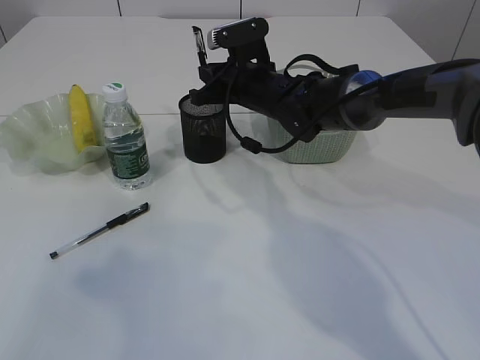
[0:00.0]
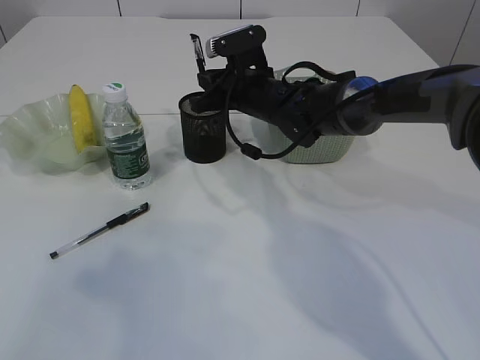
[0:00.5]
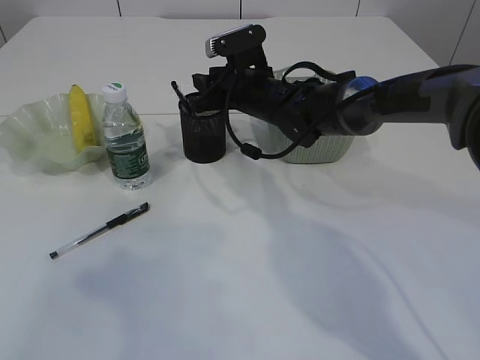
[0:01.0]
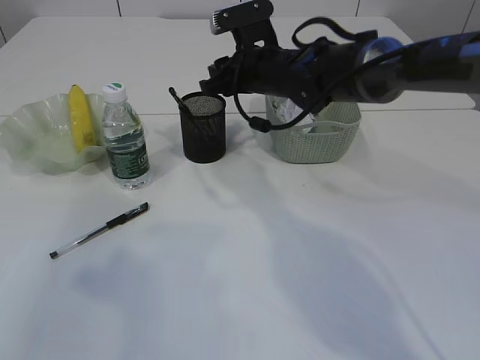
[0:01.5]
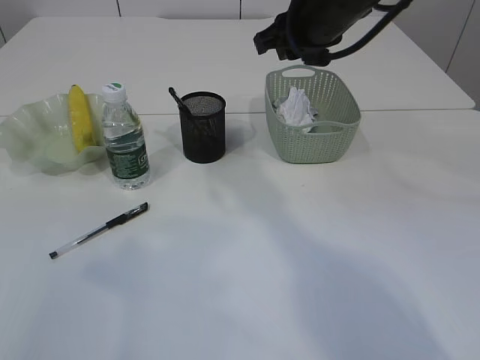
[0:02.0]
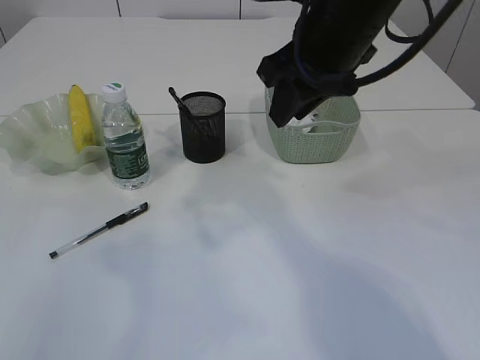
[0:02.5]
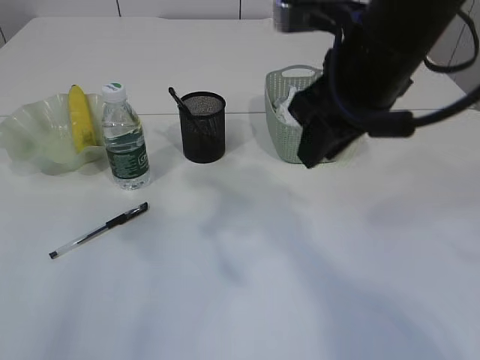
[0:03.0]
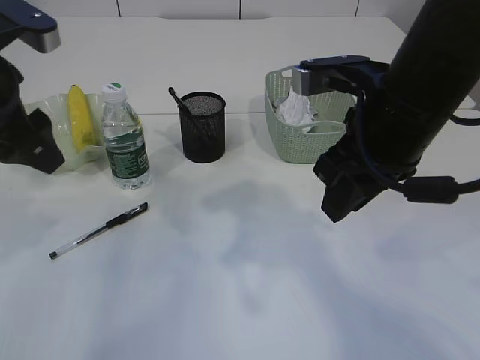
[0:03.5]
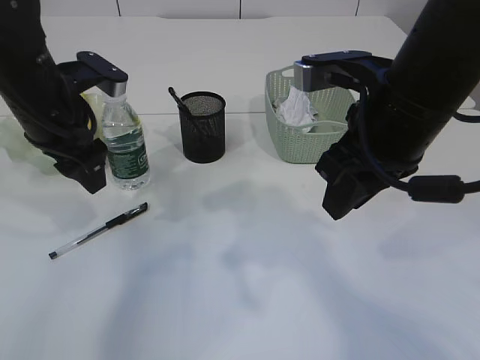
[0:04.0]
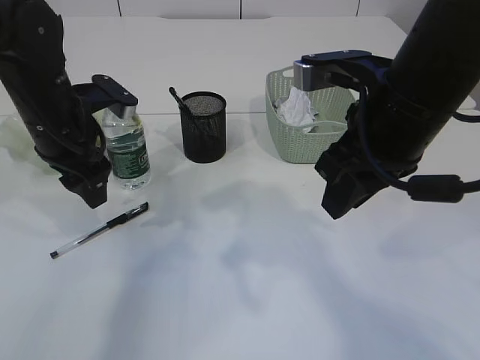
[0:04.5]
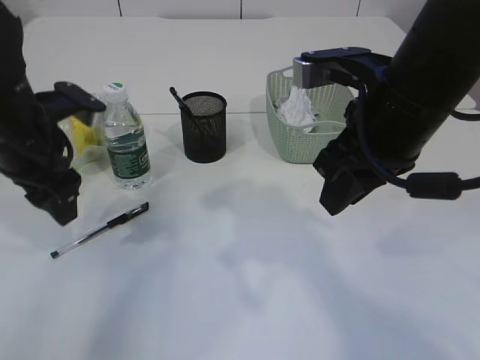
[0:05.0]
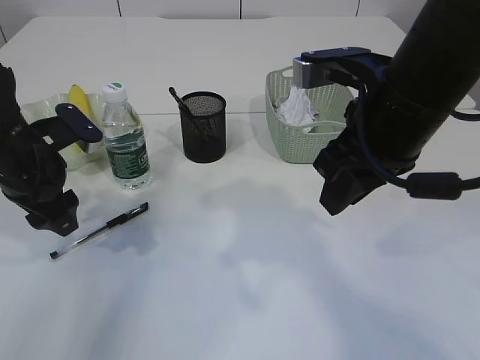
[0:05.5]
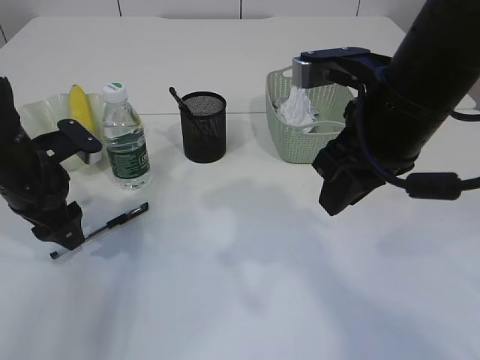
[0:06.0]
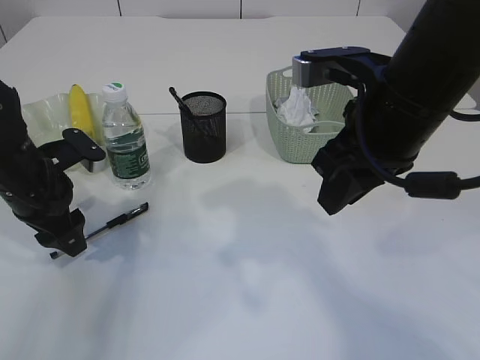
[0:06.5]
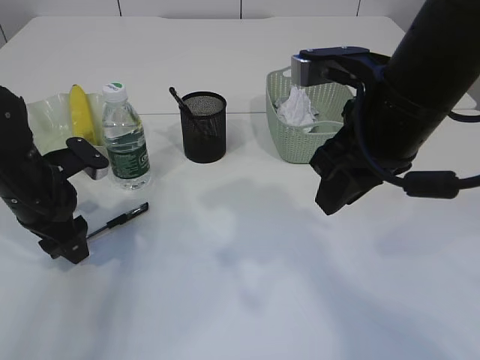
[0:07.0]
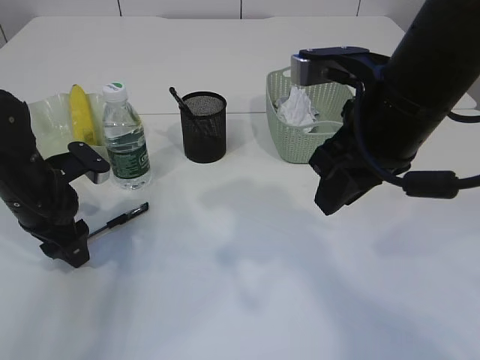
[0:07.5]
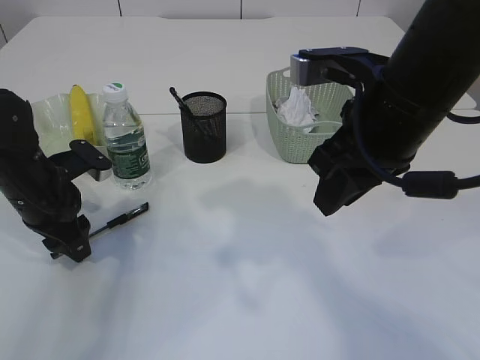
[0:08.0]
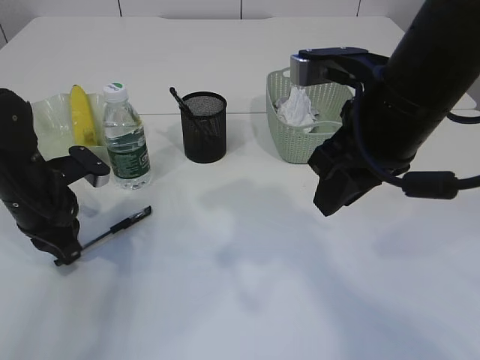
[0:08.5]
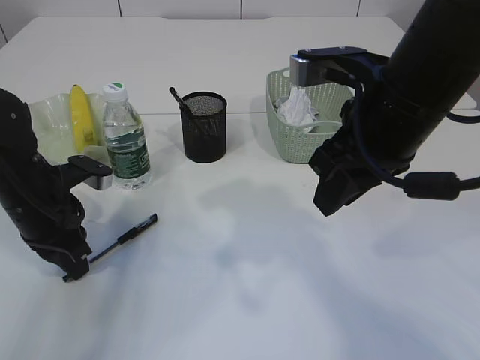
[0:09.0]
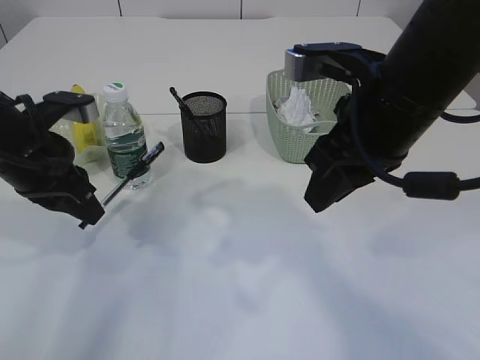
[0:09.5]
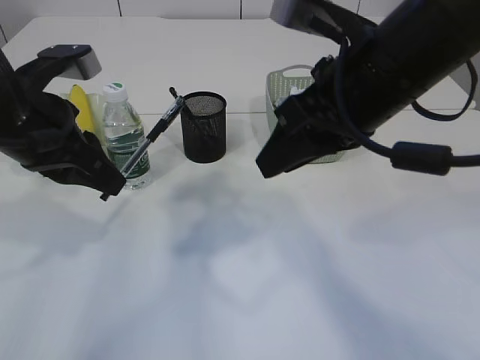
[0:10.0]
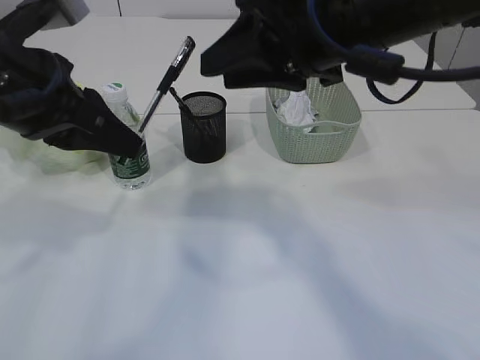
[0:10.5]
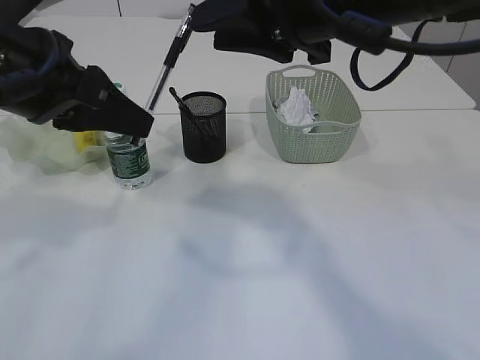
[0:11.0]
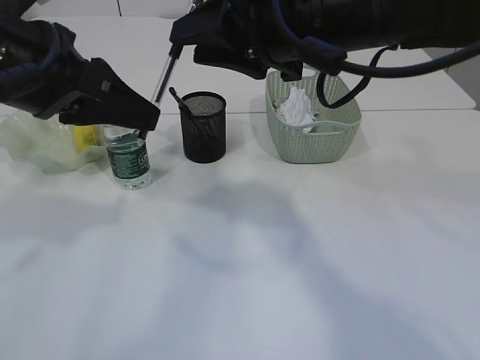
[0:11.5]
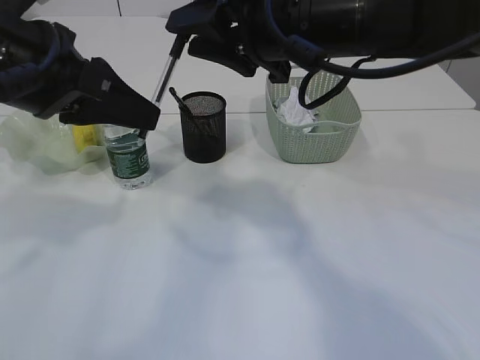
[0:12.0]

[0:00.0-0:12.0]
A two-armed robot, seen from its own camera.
Step, 0:02.0 to 0:09.5: Pick up the pen with left arm.
0:00.0 to 0:02.0: The right gripper is displaced upward, backward and to the right by about 15 cm, and opens up.
0:02.0 to 0:04.0: The left gripper is displaced forward, downward and to the right by about 30 cm; the right gripper is displaced backward by roughly 15 cm.
0:04.0 to 0:06.0: The left gripper moves downward, about 10 cm.
0:06.0 to 0:08.0: There are only small adjustments of the grippers.
0:08.0 to 0:10.0: The left gripper heads upward, covering roughly 15 cm, and closes up.
0:10.0 to 0:12.0: The left gripper shifts approximately 5 cm upward. Meanwhile the right gripper is displaced forward by approximately 5 cm.

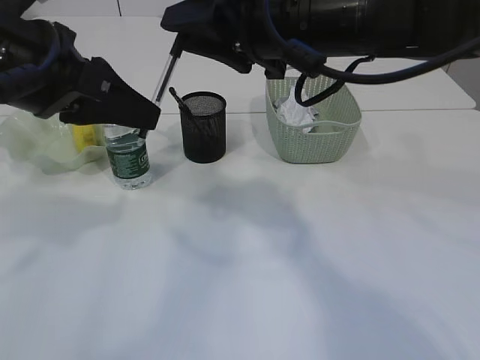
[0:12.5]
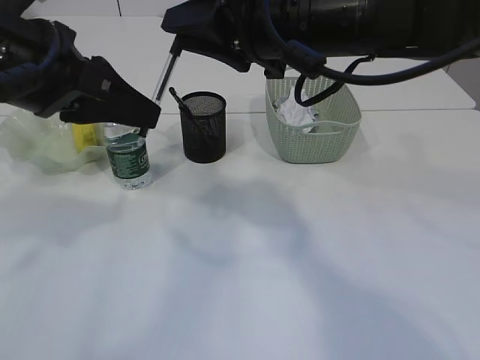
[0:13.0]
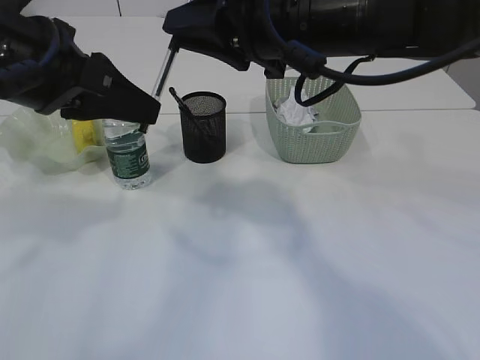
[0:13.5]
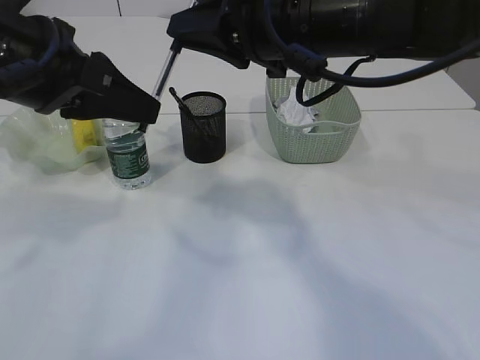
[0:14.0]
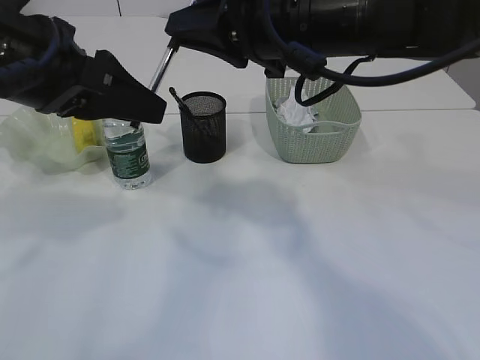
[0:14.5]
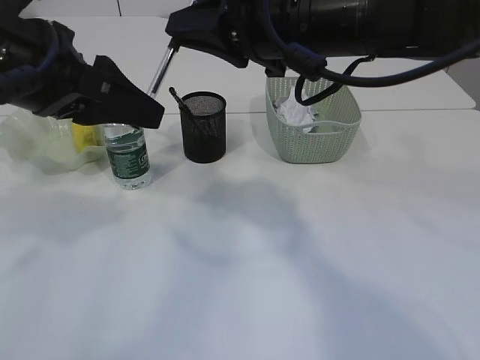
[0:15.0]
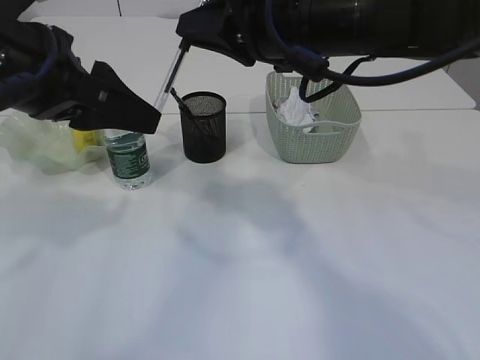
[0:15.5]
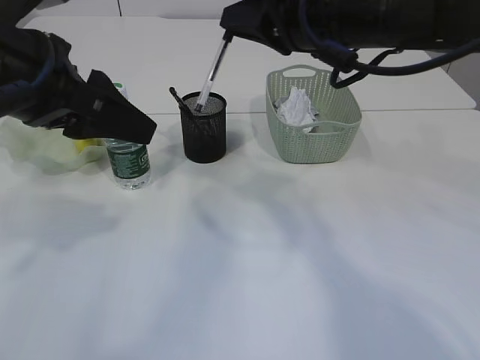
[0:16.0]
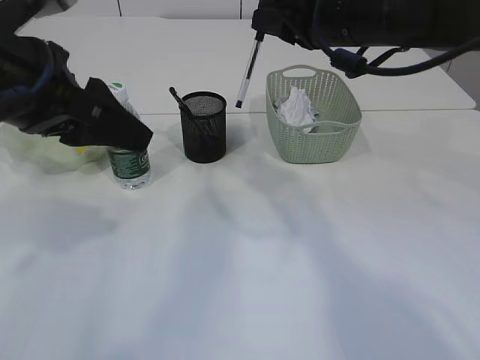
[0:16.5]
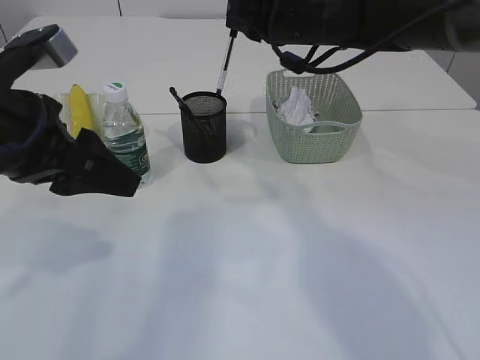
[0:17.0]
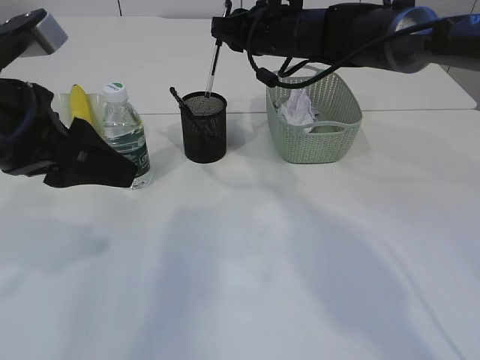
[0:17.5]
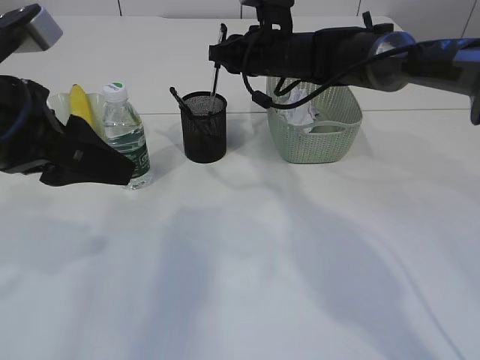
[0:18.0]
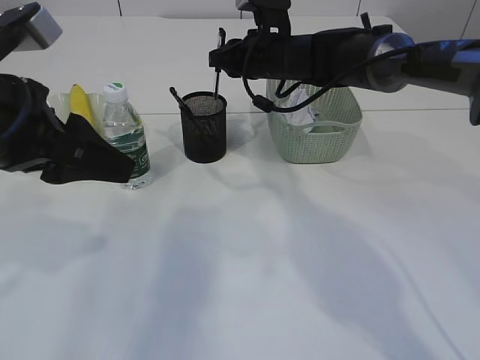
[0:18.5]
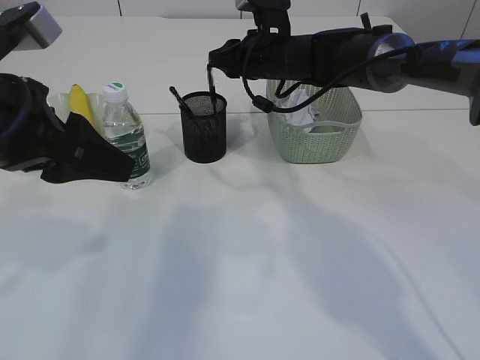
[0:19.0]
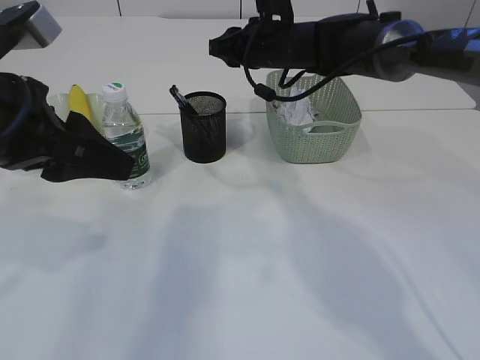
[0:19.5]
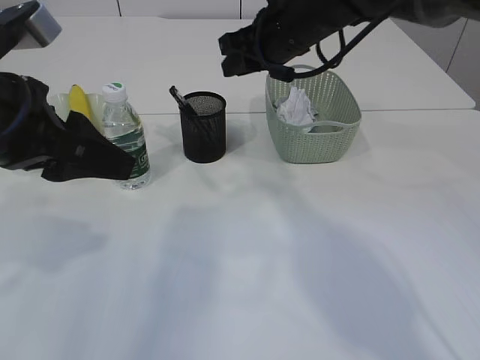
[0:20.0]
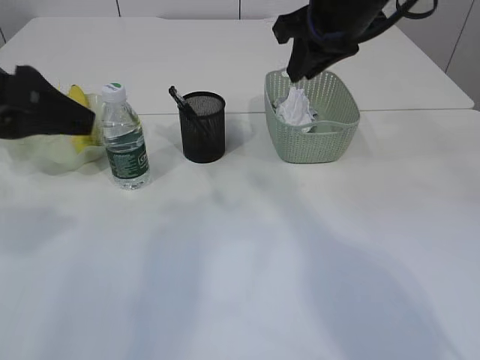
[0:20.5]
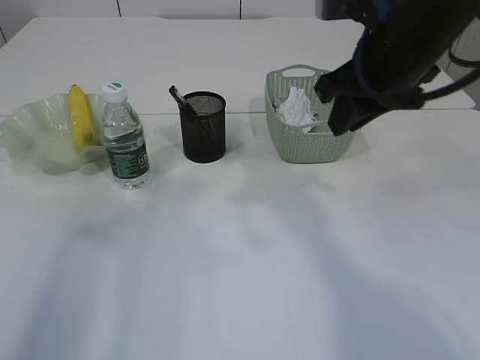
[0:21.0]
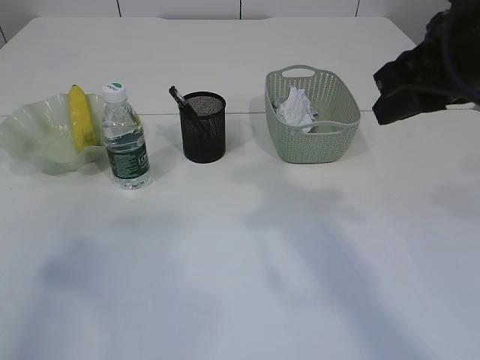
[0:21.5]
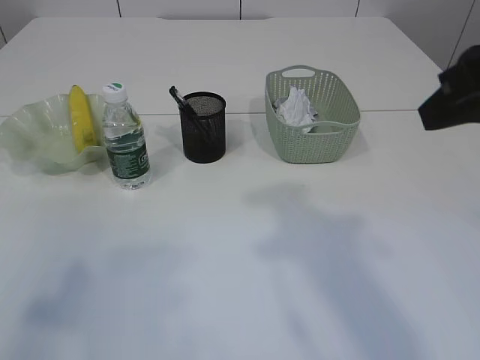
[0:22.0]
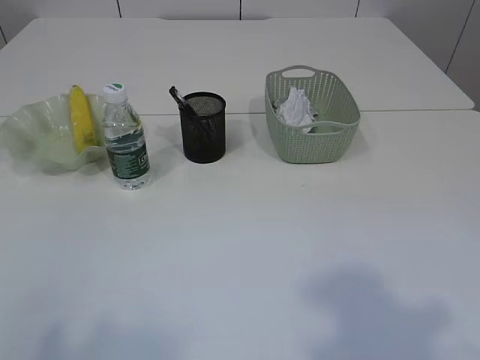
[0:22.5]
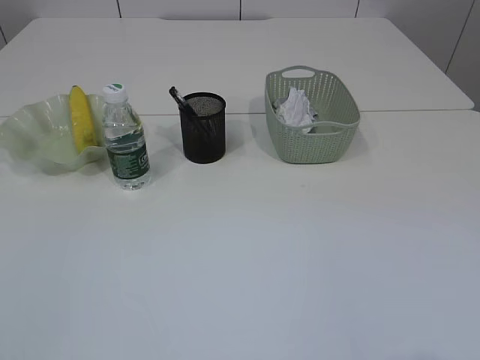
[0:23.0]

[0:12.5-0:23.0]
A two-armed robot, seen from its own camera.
Step, 0:12.5 to 0:15.5: transfer the pen to the right arm.
Step, 0:16.0 to 0:19.5: Place the pen into the pen holder.
0:12.5 to 0:14.5: The left gripper opens, while the right gripper closes up.
0:14.5 to 0:16.5: The right gripper goes roughly 5 cm to the right.
0:16.5 to 0:19.0: The right gripper heads forward and downward, covering roughly 15 cm.
0:19.0 to 0:21.0: The right gripper shifts about 20 cm backward, upward and to the right; the left gripper travels to the left and upward by roughly 10 cm.
0:21.0 to 0:23.0: The grippers both shift backward by roughly 30 cm.

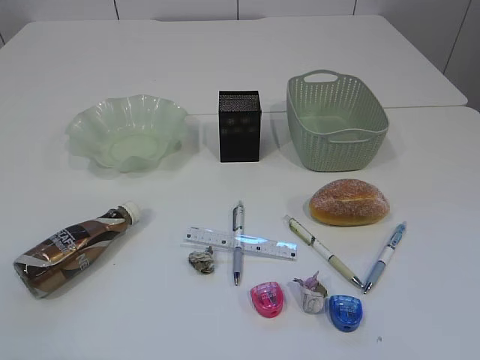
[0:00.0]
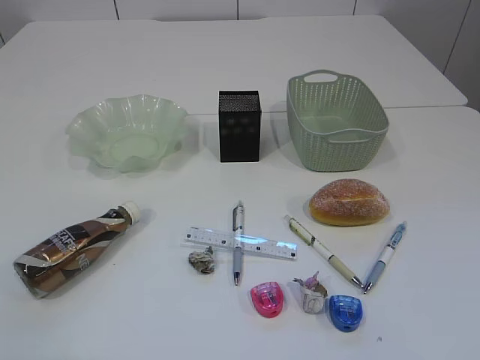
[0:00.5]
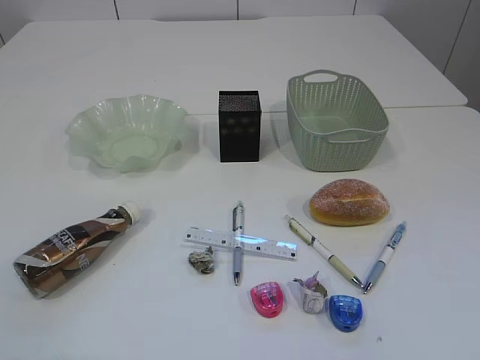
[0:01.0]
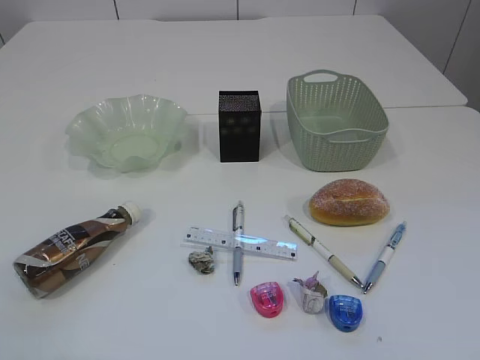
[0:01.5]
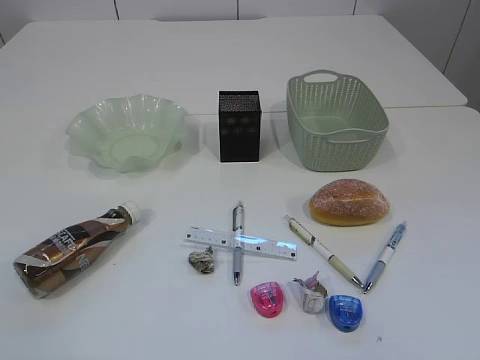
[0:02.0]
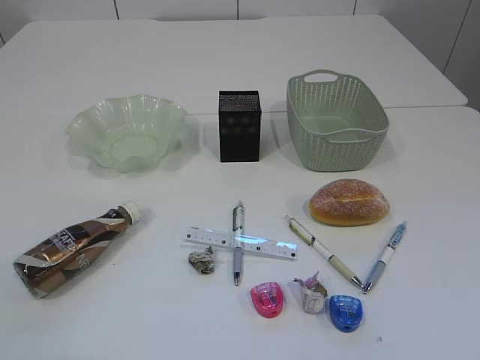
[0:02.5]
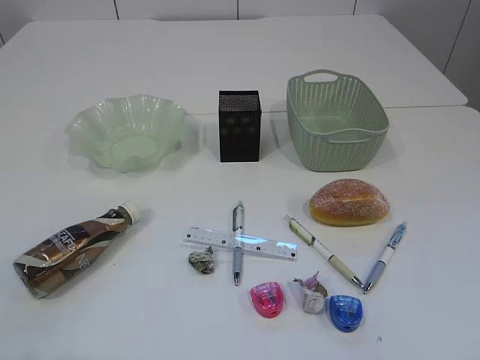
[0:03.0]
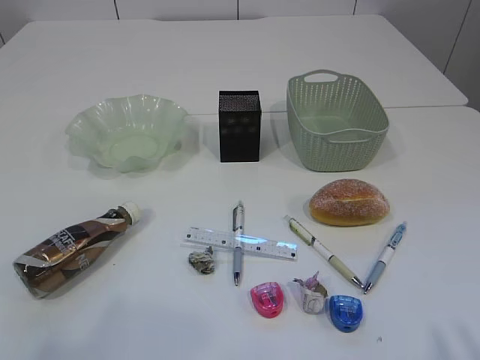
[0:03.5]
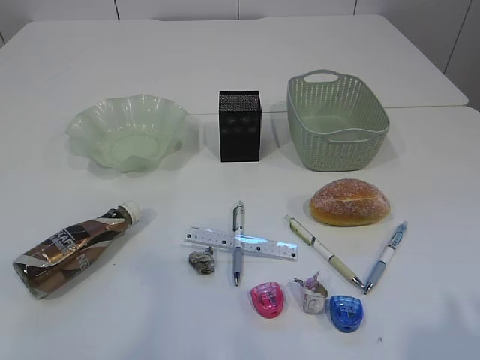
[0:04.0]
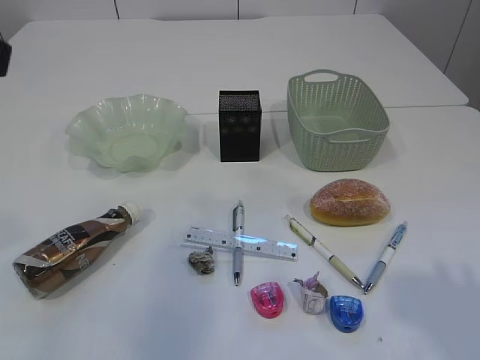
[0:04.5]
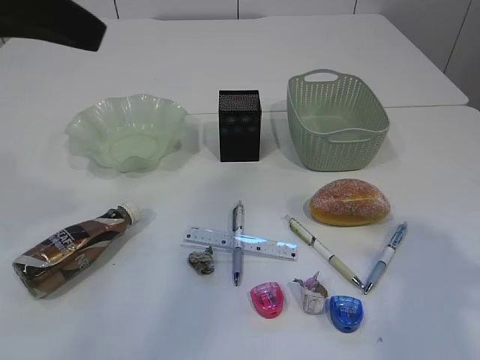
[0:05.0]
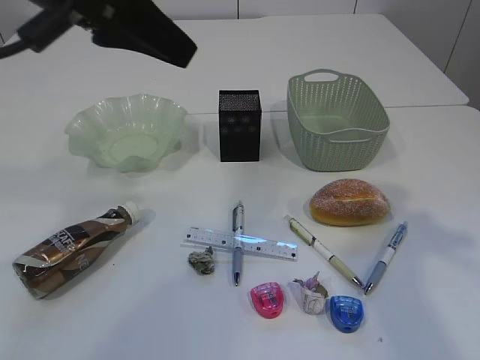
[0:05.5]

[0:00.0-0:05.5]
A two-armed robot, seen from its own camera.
0:03.5 to 0:05.5: The left gripper goes some 35 cm forward and to the right. The right gripper heads forward, covering approximately 20 cm.
